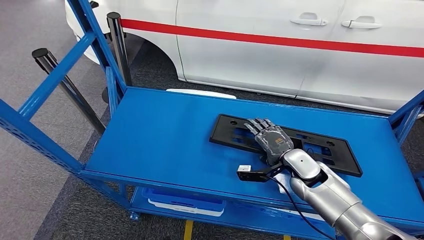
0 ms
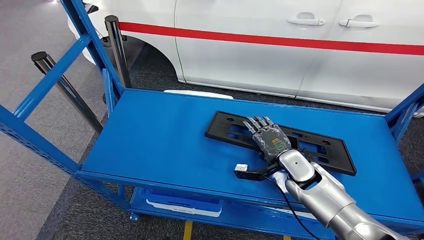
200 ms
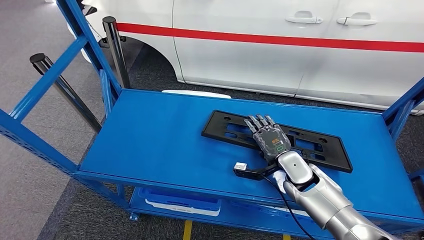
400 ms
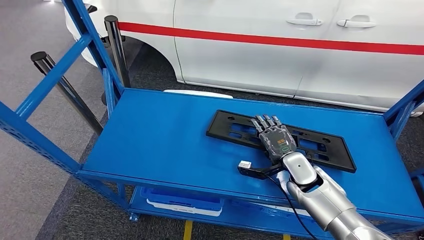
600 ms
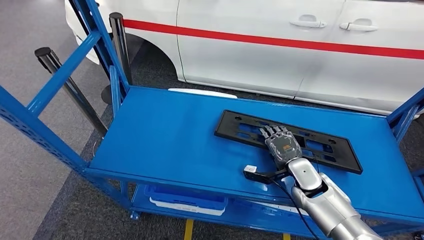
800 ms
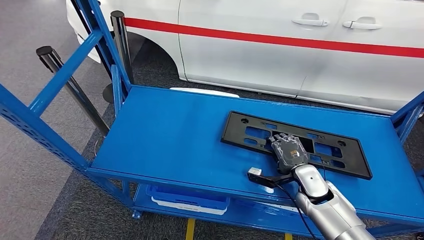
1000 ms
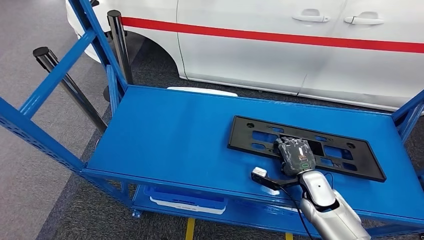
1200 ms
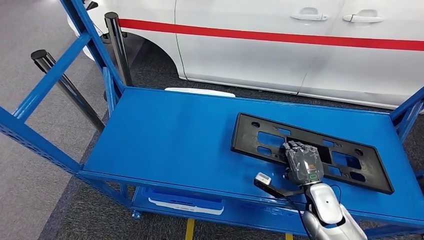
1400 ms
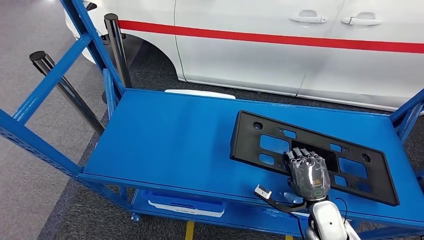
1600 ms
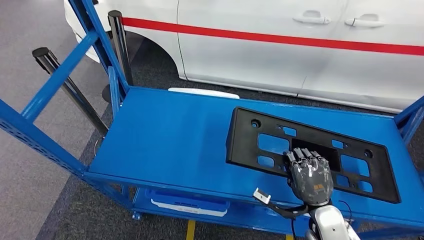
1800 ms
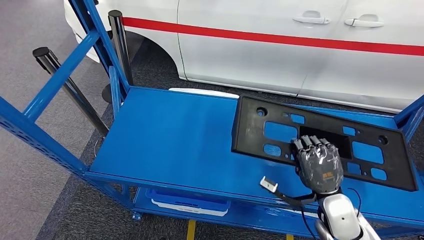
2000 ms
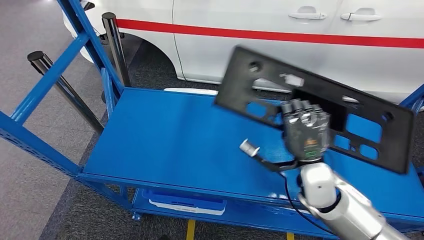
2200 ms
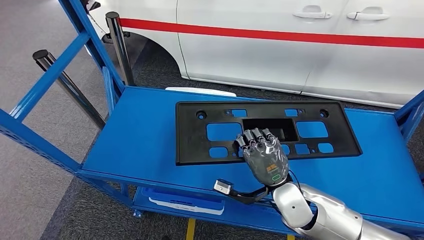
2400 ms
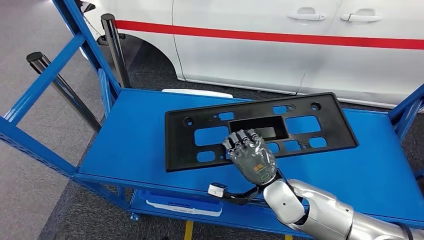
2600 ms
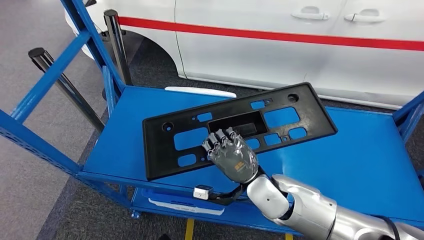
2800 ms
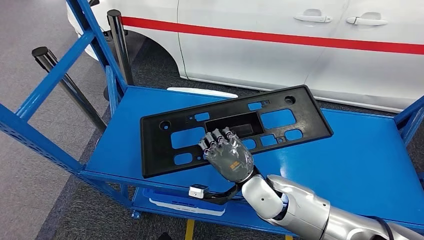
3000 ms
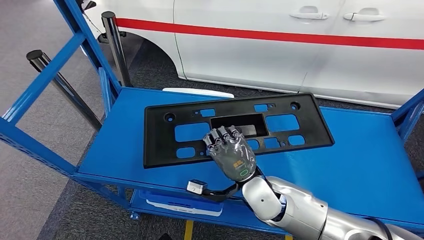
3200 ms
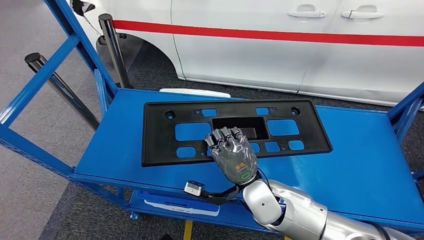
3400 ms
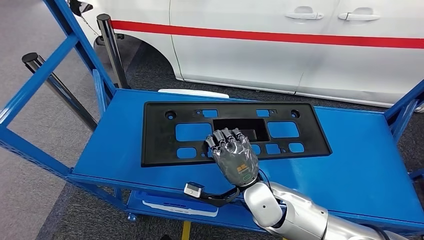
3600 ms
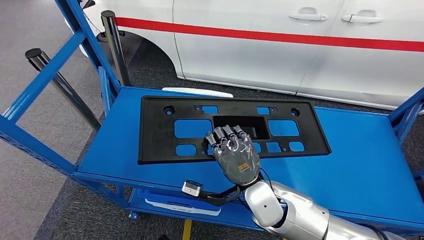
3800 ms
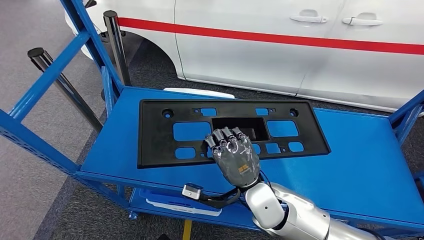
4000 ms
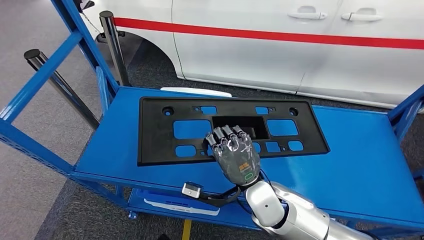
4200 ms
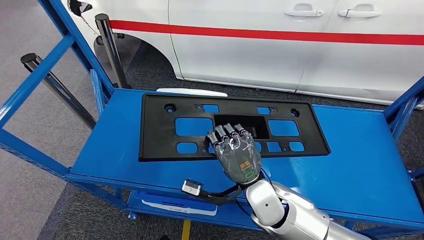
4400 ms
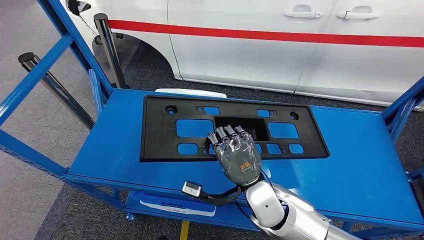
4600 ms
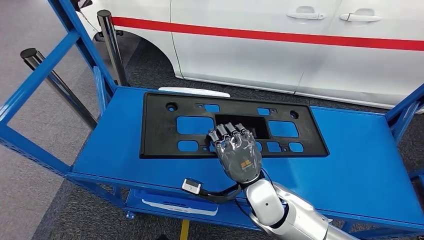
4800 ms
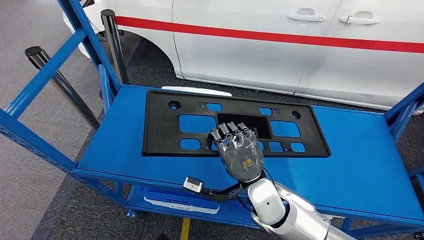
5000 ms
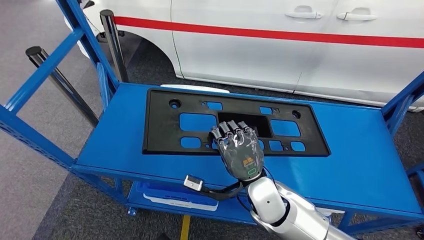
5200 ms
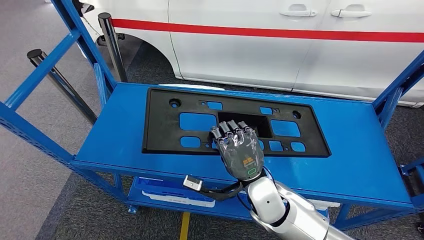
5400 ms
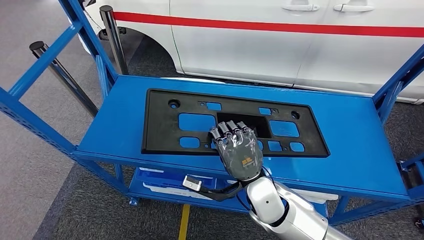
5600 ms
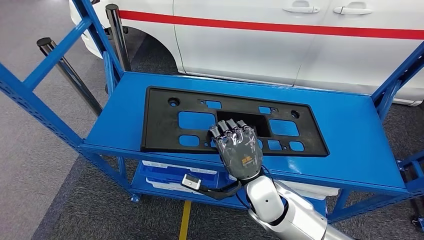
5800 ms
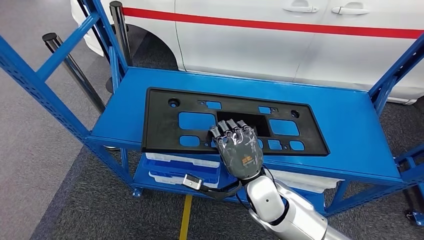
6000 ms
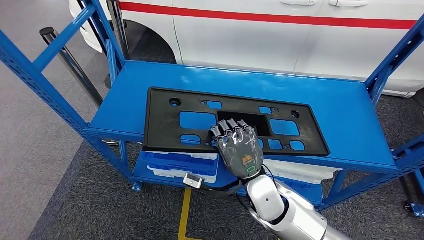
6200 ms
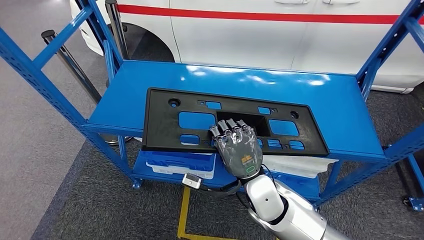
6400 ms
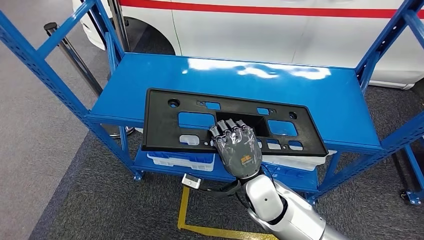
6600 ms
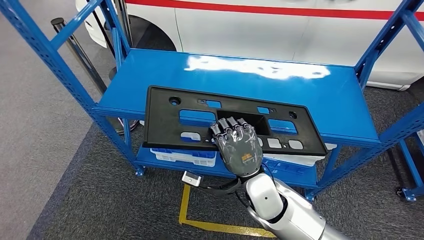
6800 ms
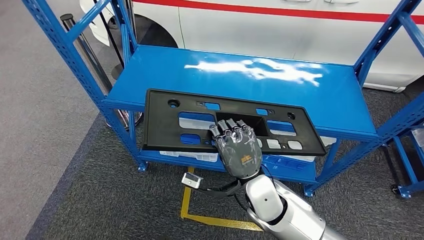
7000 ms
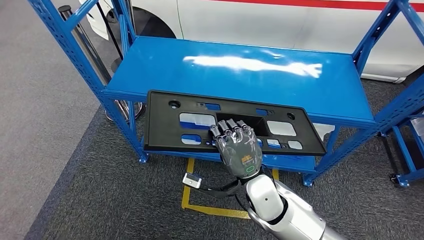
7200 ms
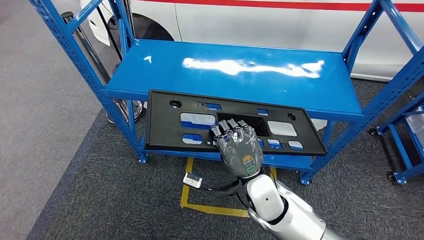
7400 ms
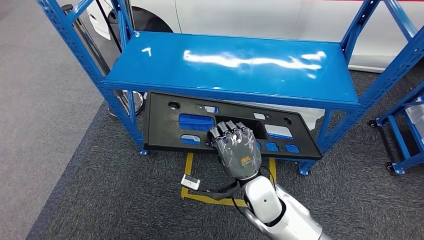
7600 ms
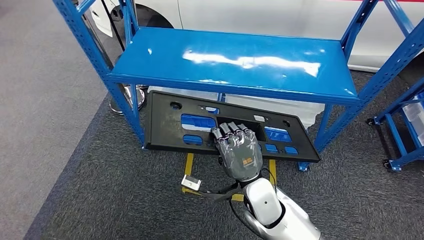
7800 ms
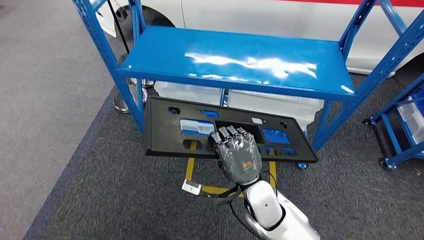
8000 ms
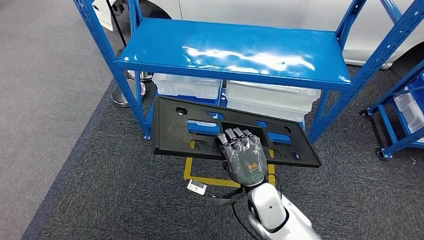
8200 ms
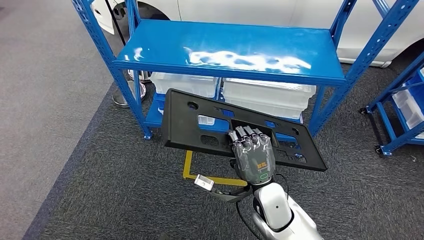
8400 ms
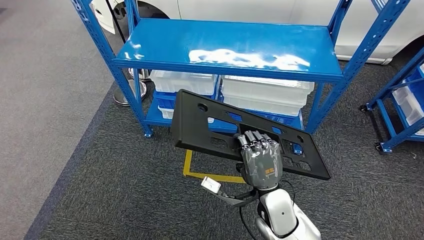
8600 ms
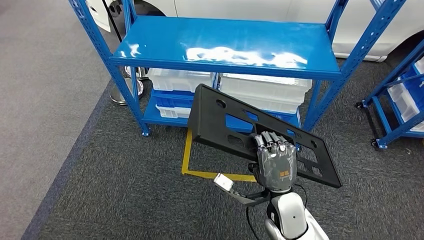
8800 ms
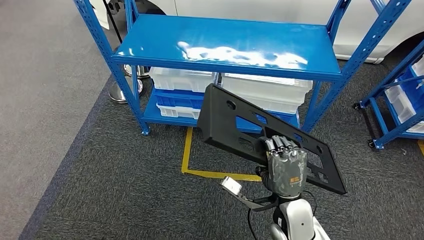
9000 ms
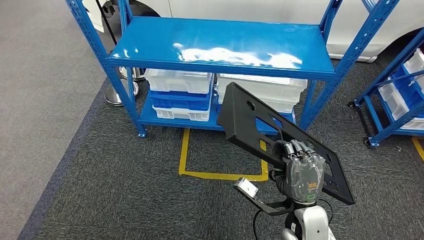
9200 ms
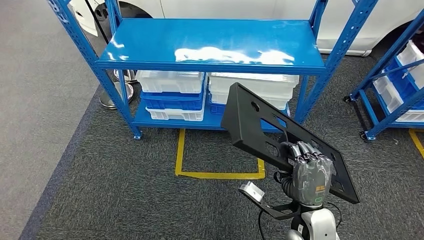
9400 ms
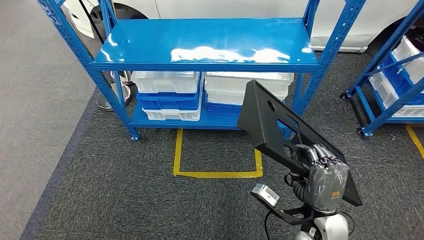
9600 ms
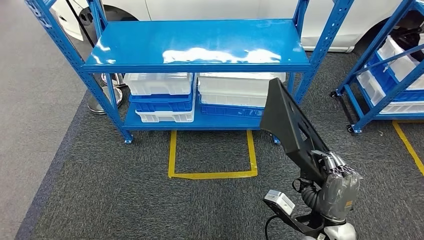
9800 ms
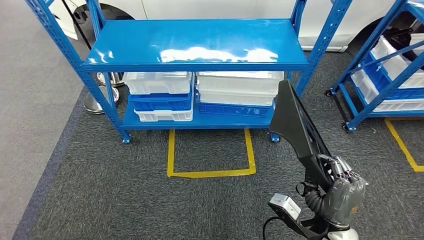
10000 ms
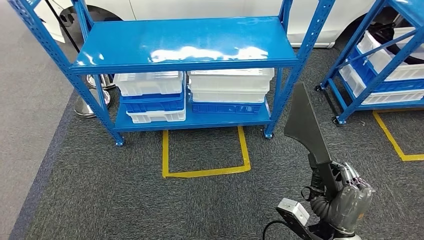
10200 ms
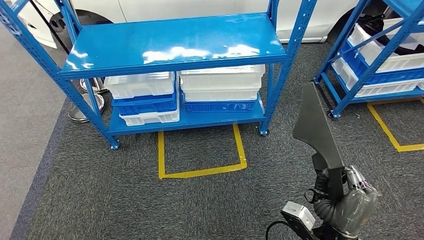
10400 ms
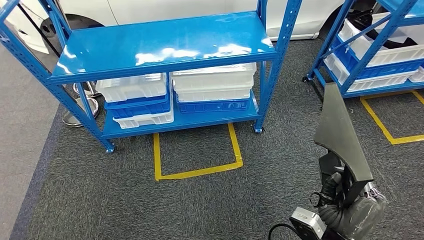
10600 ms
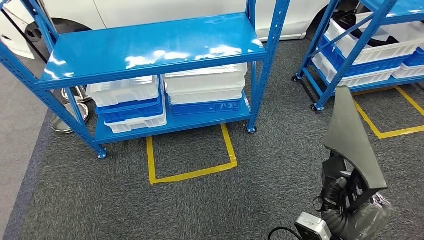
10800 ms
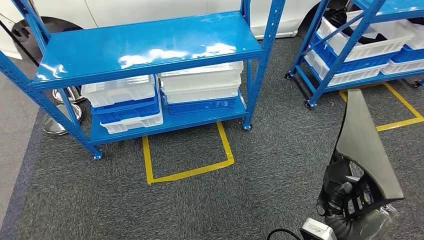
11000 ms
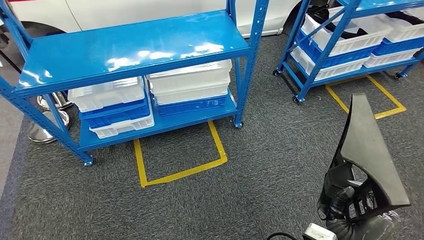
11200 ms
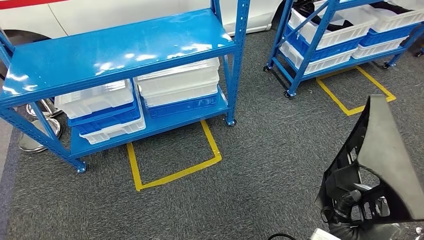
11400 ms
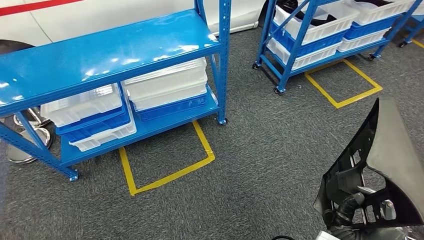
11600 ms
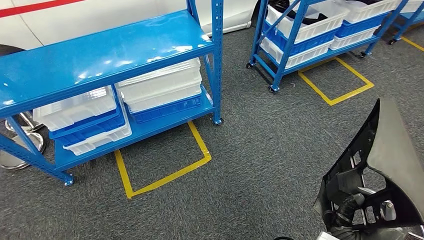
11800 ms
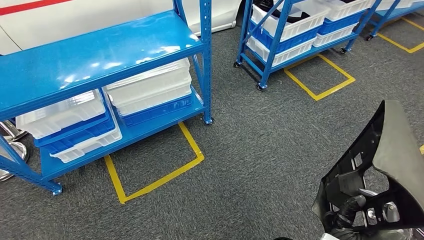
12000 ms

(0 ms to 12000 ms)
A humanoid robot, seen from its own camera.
Step, 0 ms - 3200 ms: Pick up the large material from the shelf.

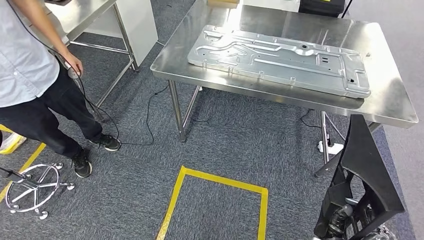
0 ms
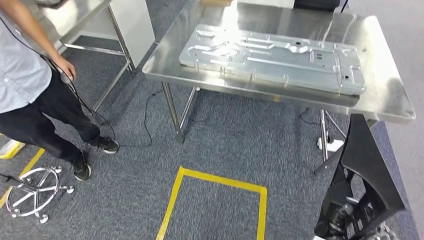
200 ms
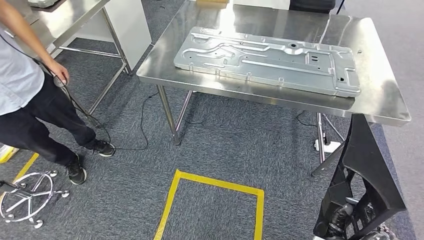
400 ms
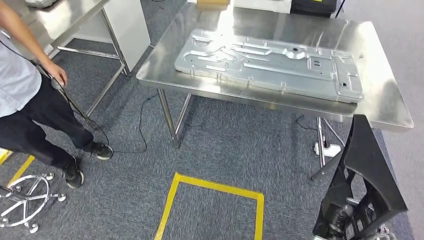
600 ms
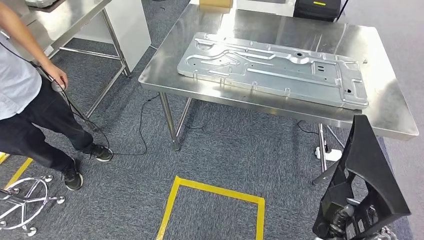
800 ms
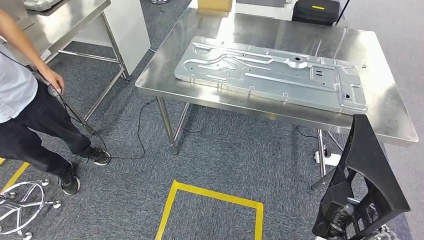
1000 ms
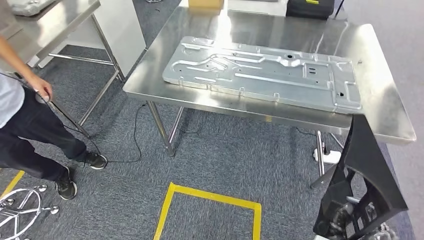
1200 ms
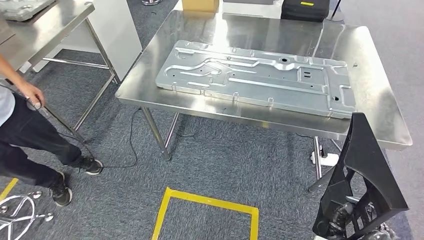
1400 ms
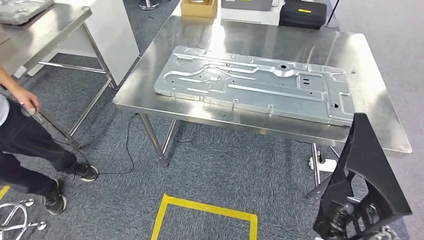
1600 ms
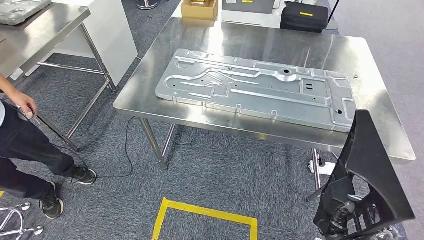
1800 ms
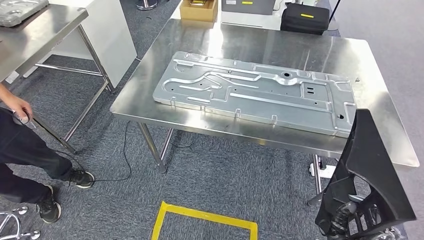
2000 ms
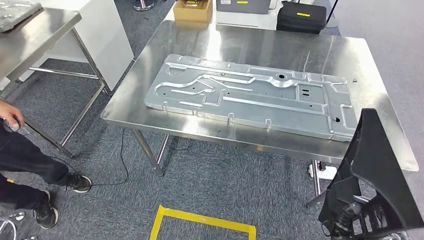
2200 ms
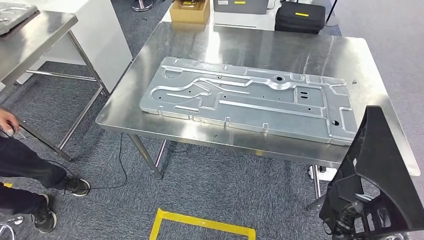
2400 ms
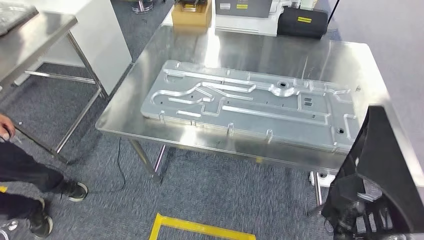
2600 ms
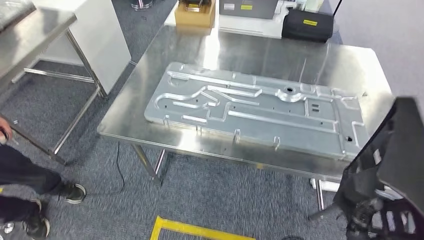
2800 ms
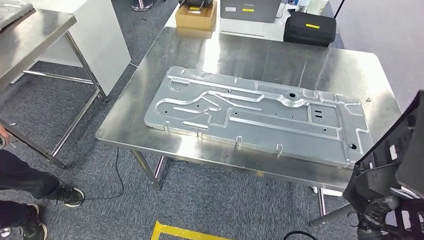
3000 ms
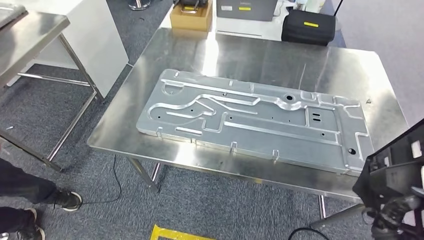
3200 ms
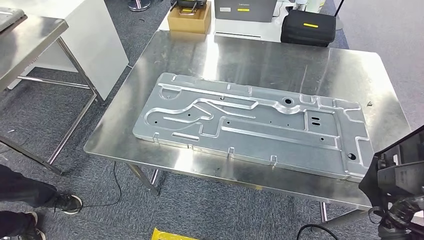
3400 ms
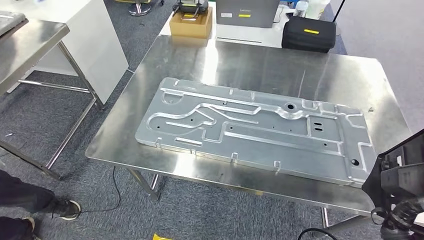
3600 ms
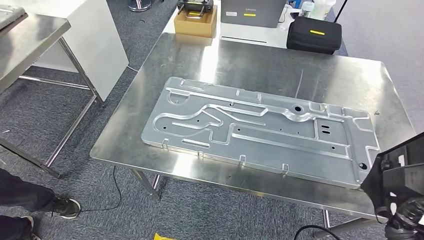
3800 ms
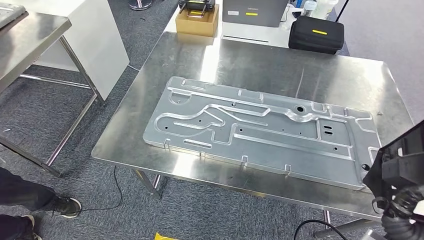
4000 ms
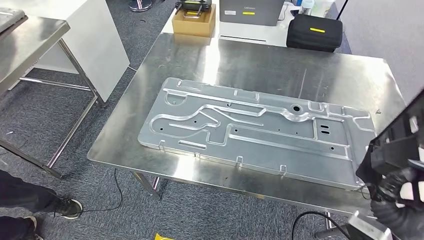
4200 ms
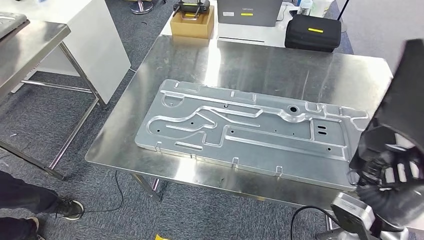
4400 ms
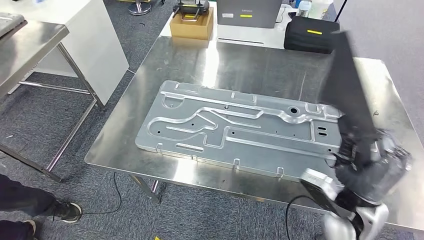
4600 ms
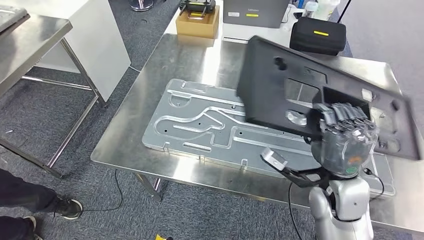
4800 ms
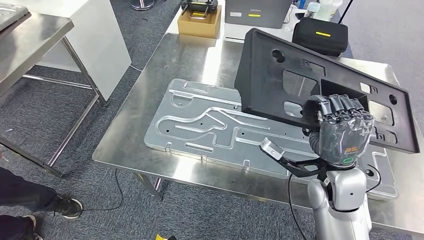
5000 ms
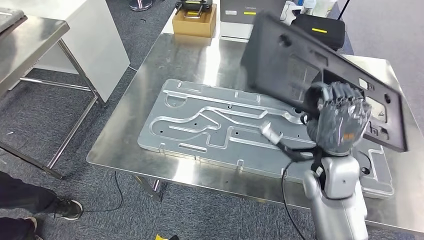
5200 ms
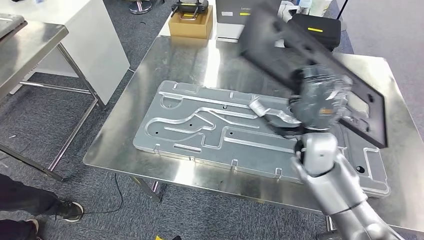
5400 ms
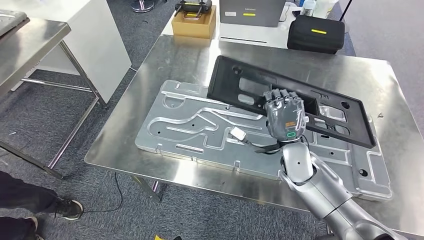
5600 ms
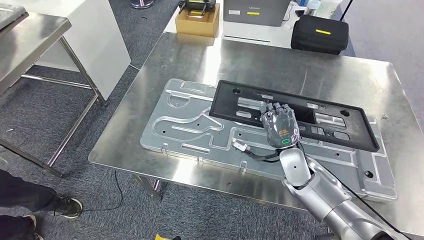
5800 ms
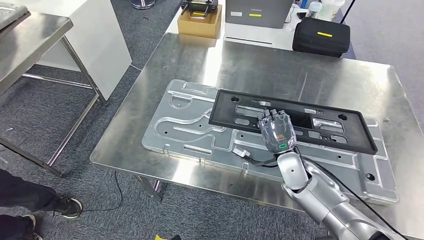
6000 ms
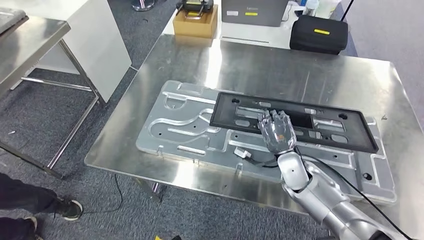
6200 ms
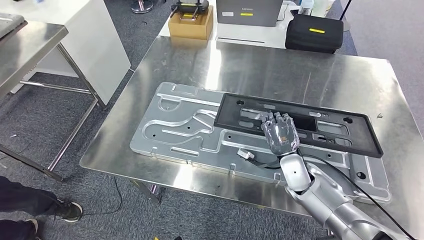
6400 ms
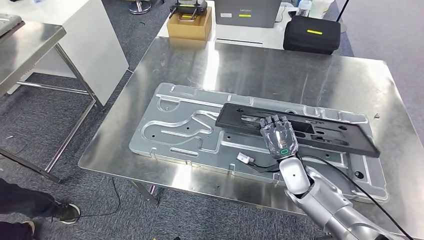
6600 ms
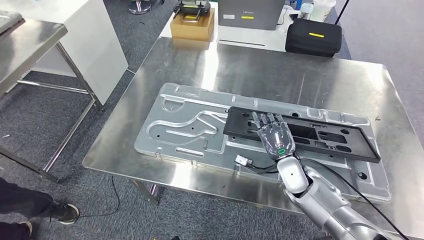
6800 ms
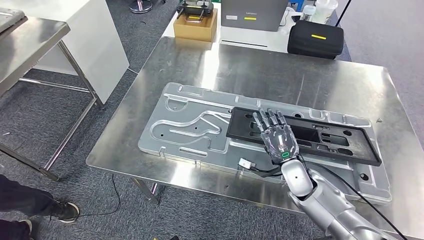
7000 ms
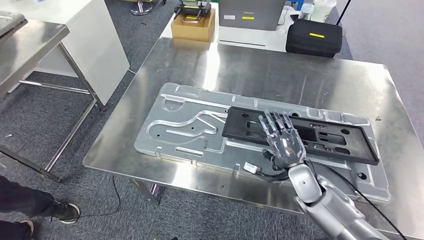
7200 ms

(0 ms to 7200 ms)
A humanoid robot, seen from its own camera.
Step, 0 ms - 3200 ms: Move the large material to the workbench.
